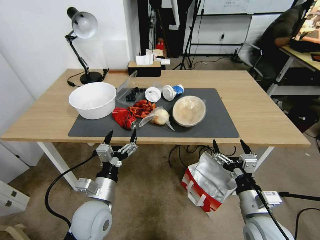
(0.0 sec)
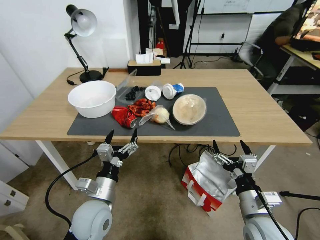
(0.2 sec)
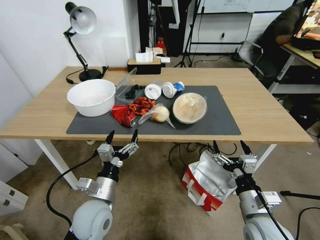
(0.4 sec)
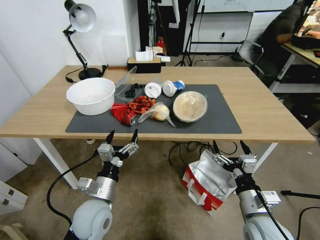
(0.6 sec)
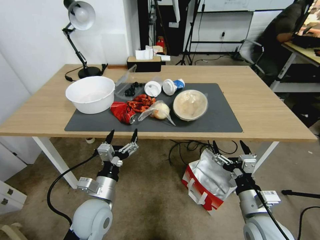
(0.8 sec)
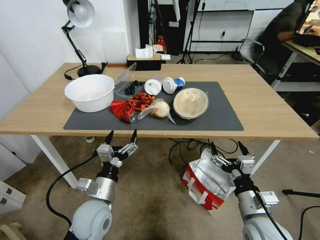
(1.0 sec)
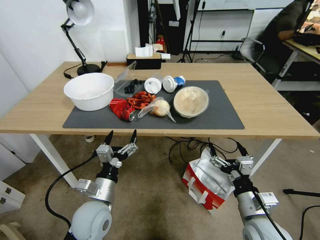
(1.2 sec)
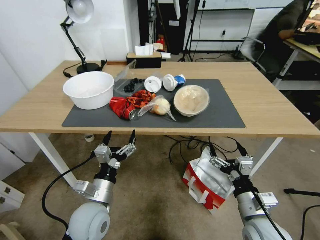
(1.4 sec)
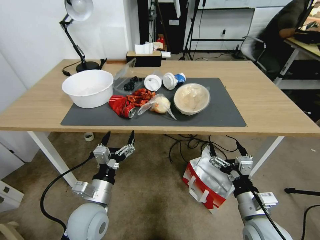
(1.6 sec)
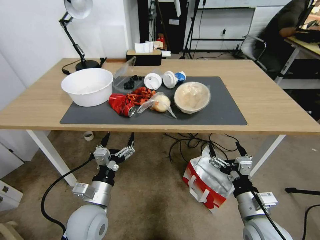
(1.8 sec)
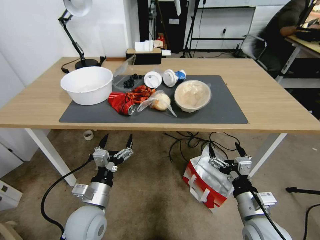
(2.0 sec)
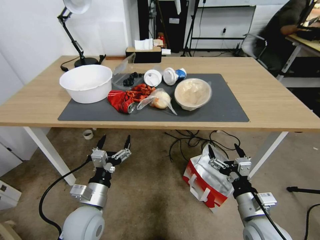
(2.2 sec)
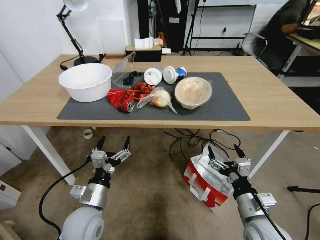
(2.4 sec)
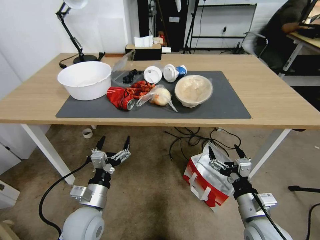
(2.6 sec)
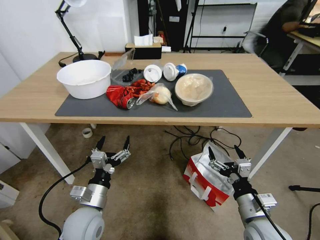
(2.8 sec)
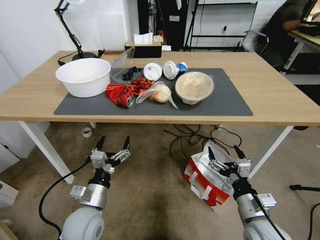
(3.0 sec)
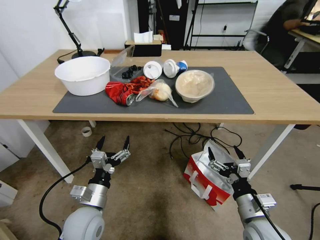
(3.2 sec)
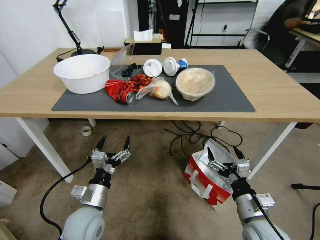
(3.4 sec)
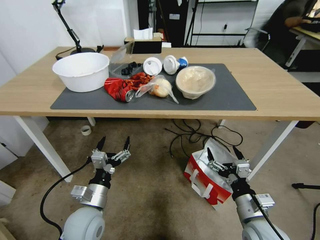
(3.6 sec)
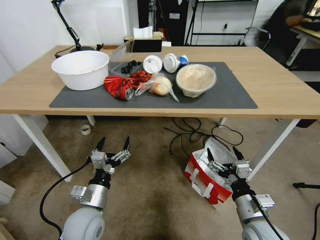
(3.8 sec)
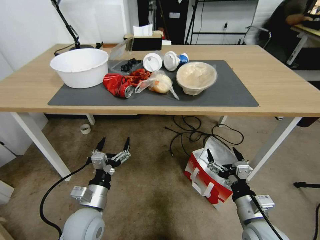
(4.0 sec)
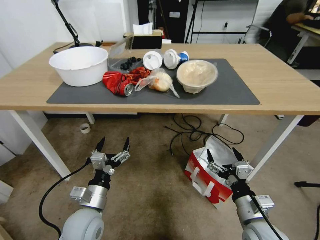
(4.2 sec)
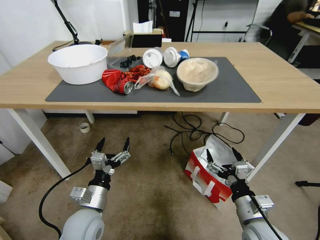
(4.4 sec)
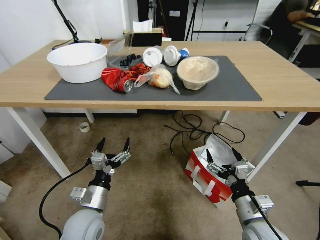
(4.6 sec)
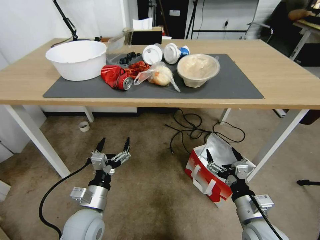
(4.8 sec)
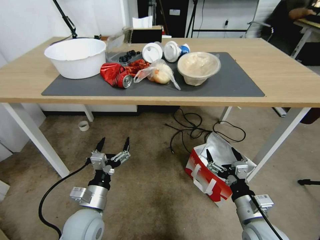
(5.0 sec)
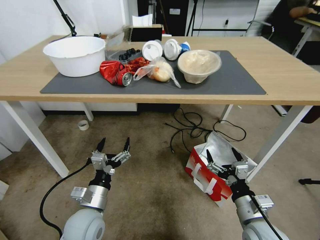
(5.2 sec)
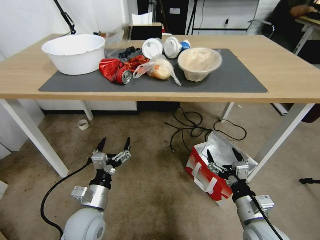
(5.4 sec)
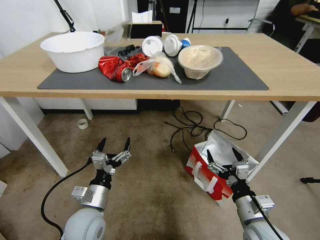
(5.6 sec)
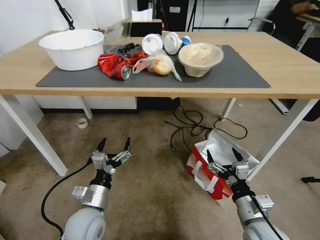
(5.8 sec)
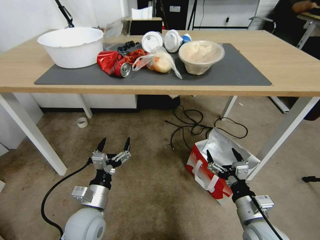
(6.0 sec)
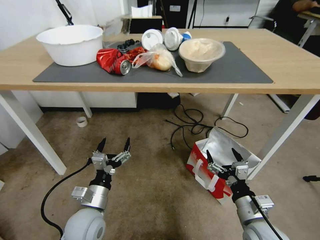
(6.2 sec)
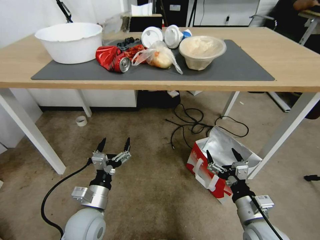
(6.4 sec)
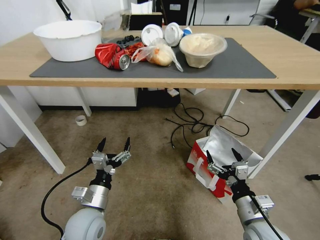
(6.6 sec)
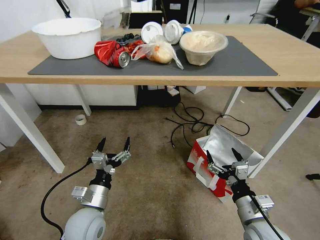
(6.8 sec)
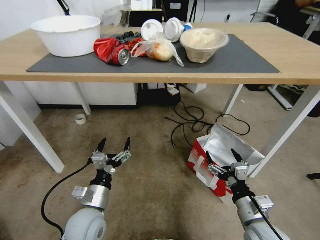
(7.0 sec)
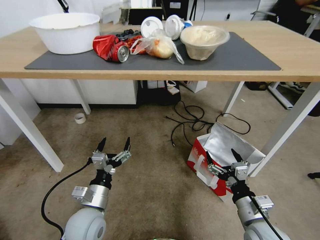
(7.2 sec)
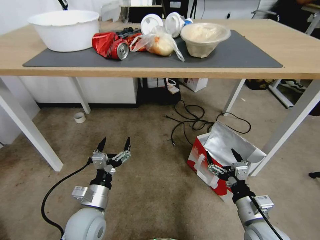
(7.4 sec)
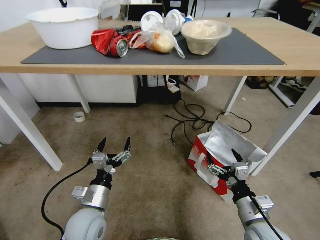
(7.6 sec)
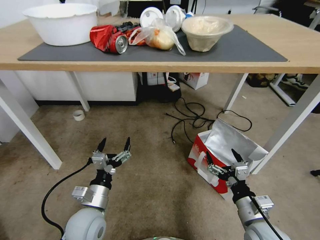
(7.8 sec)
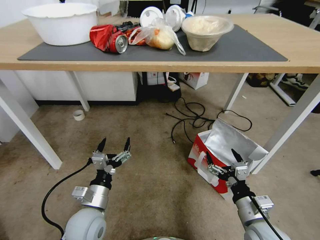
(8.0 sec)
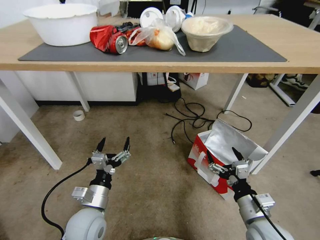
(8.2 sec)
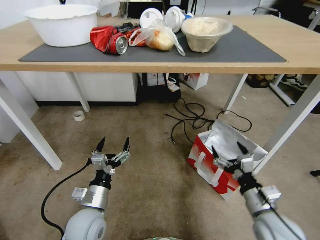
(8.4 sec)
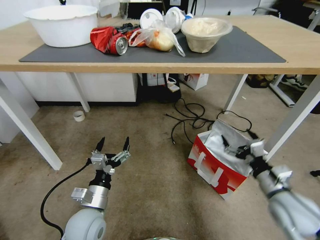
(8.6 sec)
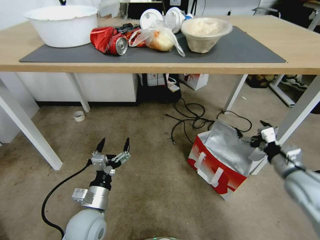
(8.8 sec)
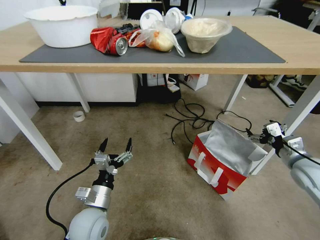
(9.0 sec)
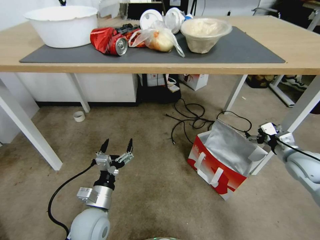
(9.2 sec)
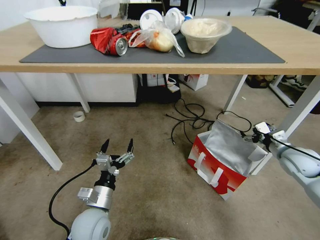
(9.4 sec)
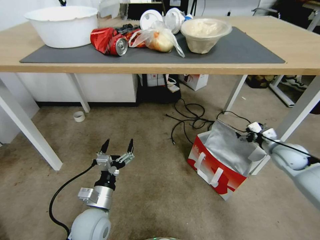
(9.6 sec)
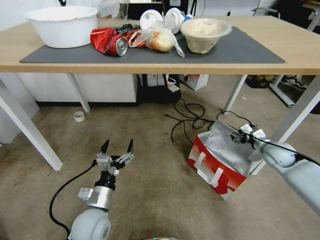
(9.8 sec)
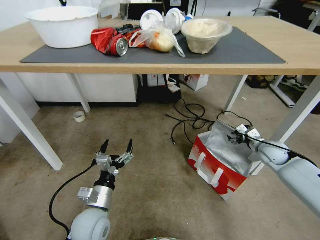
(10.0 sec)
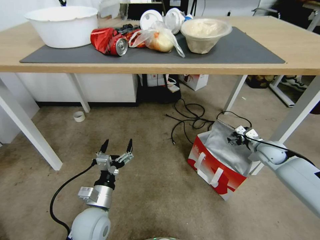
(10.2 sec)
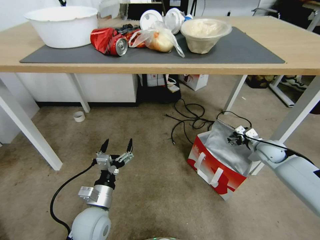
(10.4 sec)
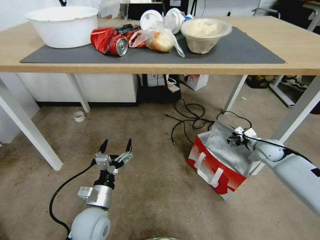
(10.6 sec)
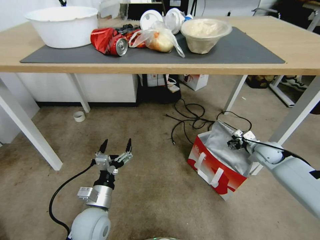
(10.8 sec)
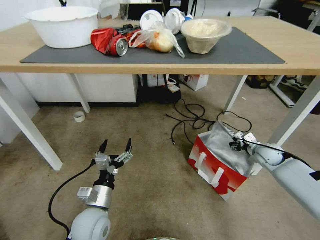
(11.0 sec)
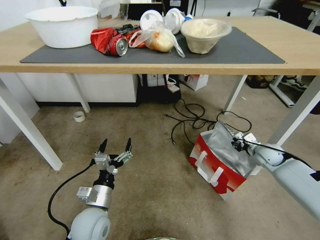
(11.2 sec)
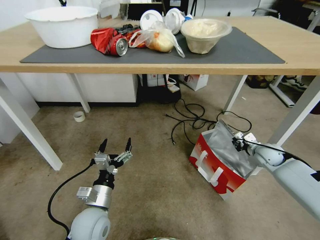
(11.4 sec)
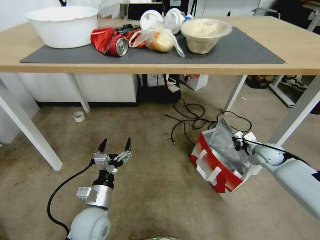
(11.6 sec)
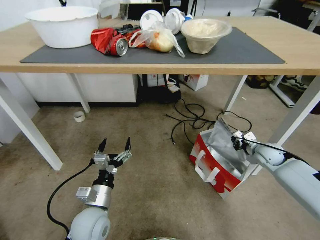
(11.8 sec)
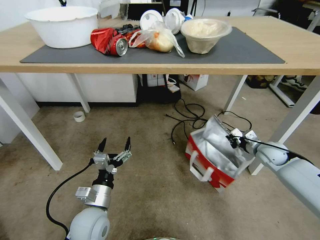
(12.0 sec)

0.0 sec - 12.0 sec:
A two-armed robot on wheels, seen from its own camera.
Task of the whole recording: Pick up the food delivery bag from the floor and place it on the table.
7.6 sec - 9.0 sec: The right gripper travels to the right, forward and upward by approximately 25 cm.
9.0 sec - 10.4 sec: The right gripper is displaced forward and downward by about 15 cm.
10.4 sec - 12.0 sec: The right gripper closes.

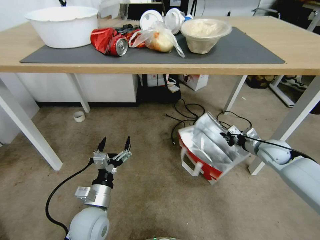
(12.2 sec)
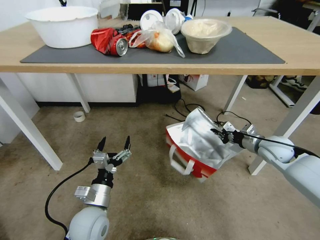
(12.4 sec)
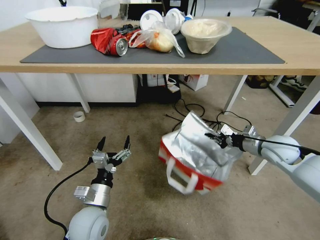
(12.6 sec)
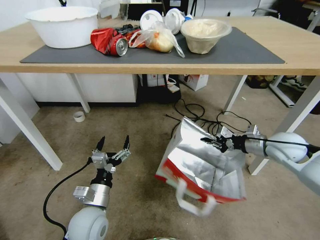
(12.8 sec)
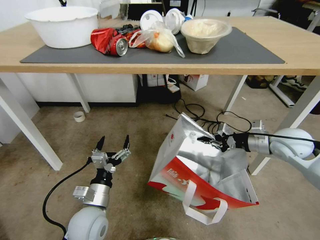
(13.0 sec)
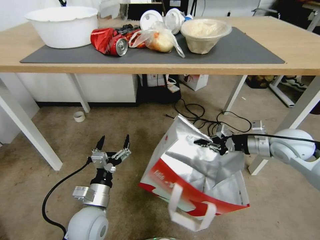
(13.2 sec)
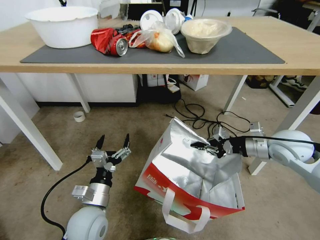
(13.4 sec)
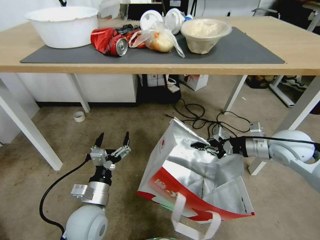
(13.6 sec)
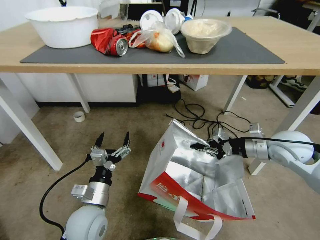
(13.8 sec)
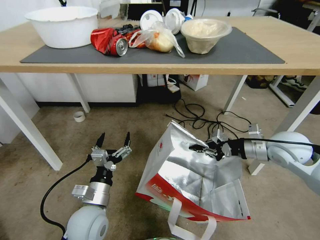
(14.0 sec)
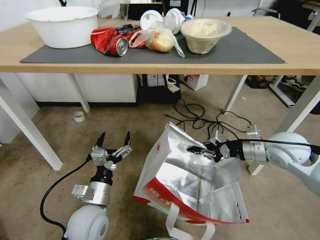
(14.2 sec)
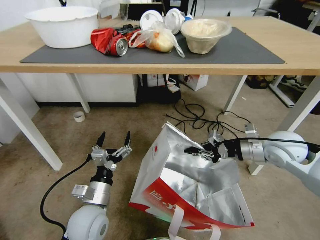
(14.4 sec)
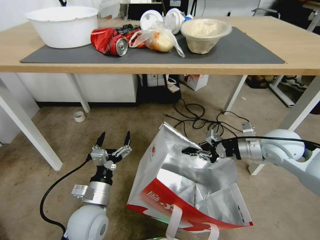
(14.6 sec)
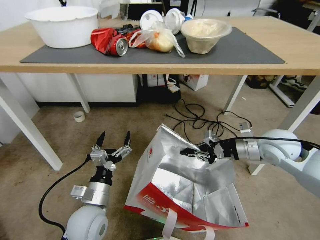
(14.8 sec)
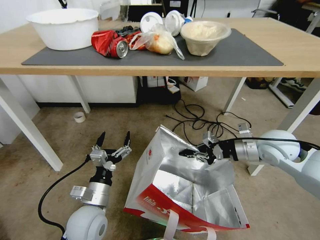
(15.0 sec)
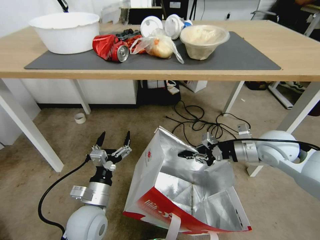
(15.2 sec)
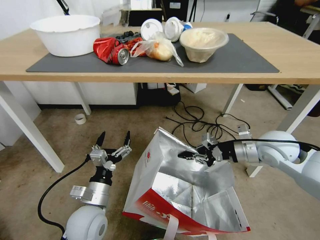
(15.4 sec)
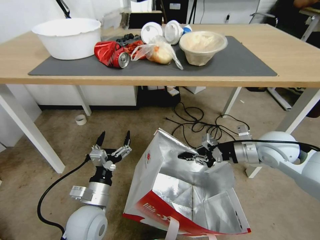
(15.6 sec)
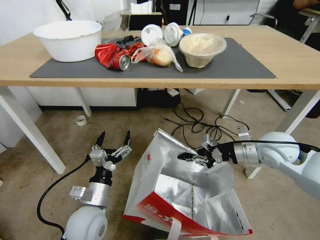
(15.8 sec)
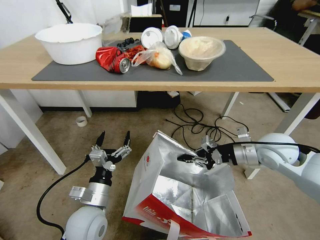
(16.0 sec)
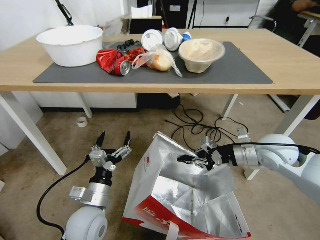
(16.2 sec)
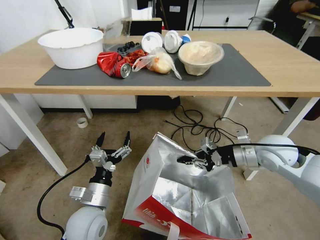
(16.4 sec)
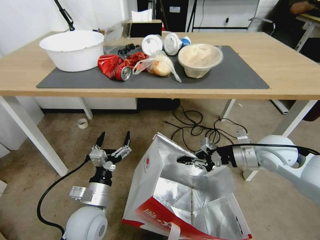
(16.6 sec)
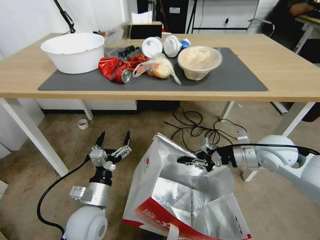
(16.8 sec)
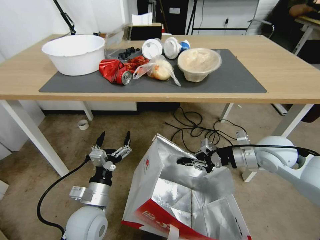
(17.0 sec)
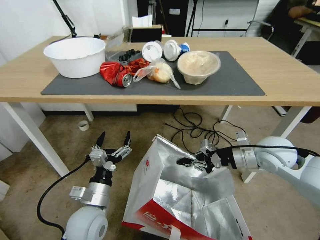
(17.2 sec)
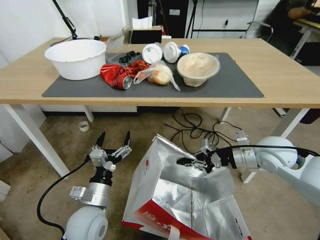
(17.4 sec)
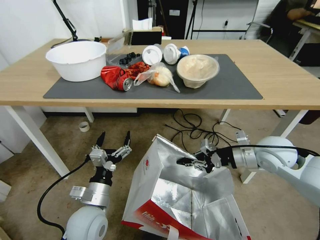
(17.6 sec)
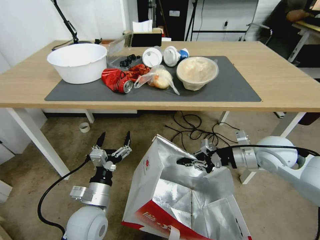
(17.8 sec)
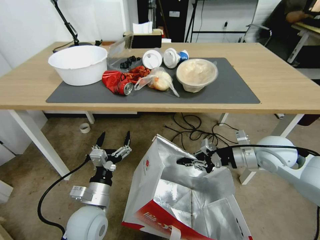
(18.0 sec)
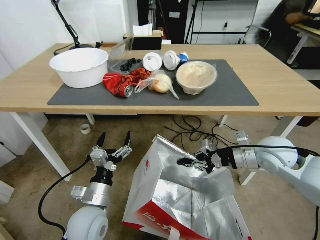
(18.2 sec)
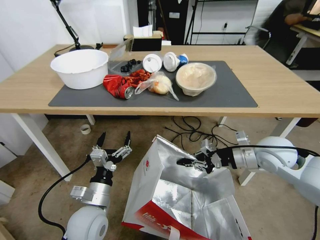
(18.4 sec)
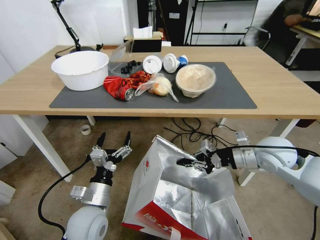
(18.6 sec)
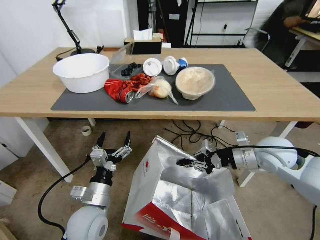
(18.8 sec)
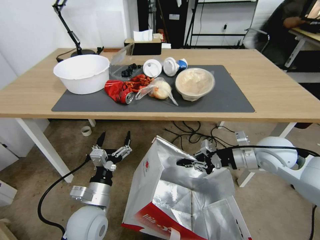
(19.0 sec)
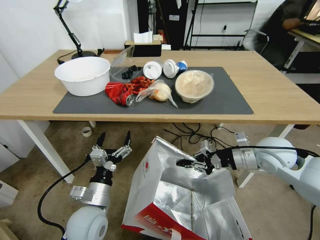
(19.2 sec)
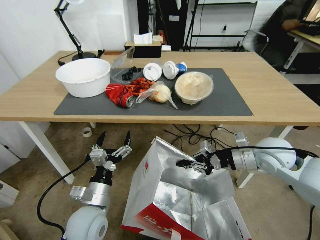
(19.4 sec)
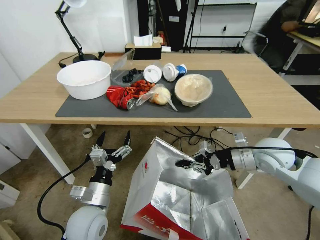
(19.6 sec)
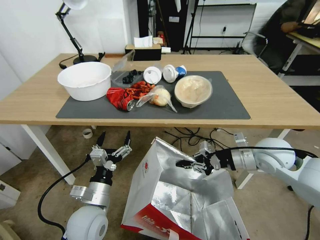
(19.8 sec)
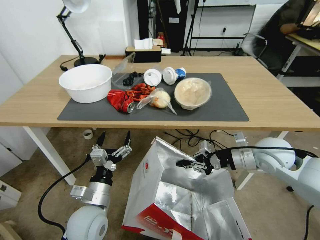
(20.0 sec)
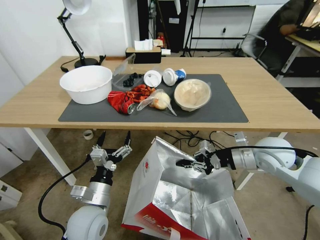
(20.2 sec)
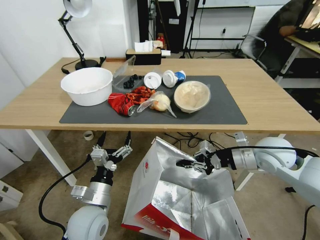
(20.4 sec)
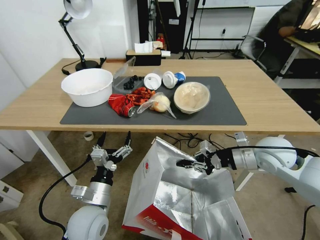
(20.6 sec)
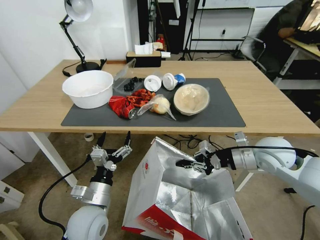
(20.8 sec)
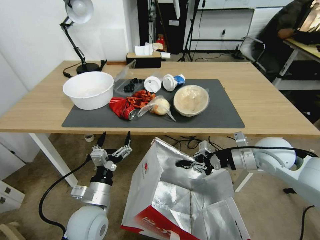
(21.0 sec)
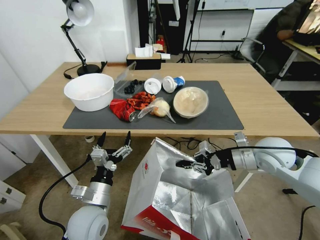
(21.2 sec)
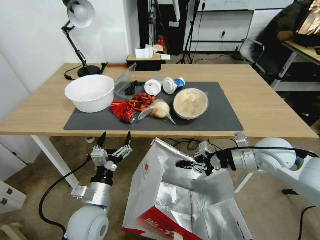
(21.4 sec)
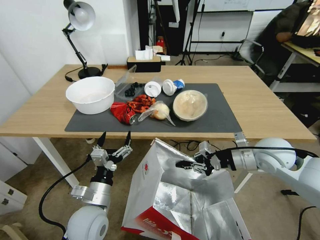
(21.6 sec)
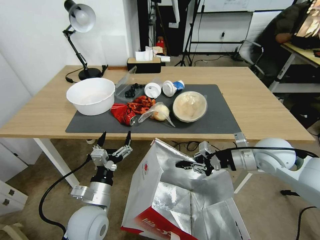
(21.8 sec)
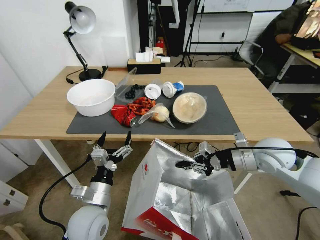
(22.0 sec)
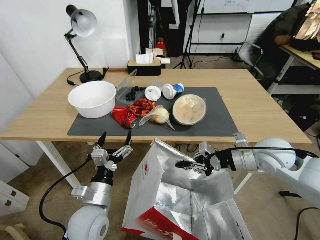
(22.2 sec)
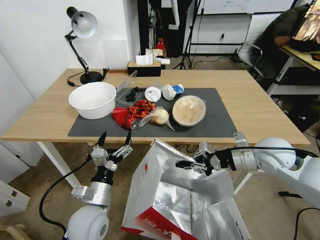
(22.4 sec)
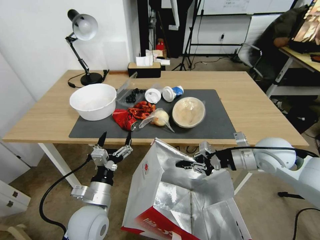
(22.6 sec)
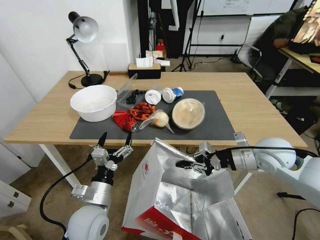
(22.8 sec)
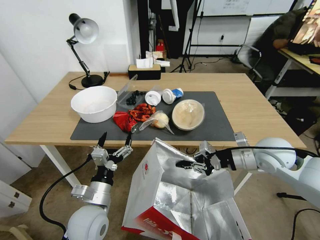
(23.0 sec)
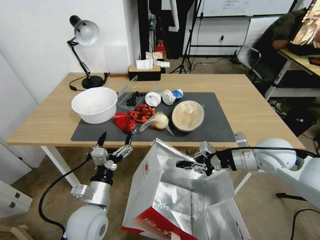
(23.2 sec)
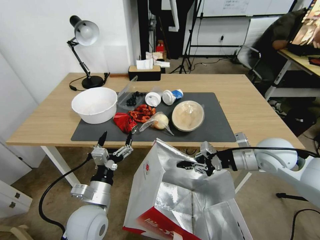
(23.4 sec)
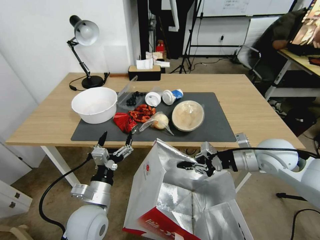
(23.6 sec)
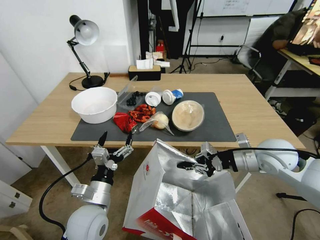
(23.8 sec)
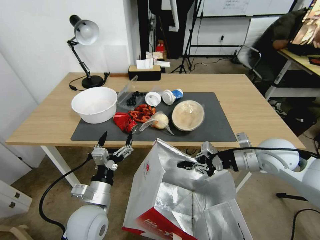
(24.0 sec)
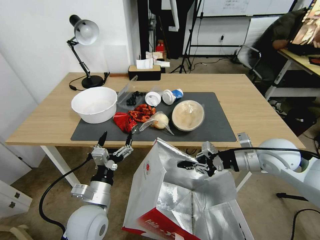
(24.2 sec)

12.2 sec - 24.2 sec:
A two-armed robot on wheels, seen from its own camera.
Task of the whole recording: Pick up the food delivery bag from the floor and place it on the table.
12.2 sec - 13.8 sec: The right gripper moves upward, backward and to the left, roughly 15 cm.
22.6 sec - 24.2 sec: The two grippers keep their place.
